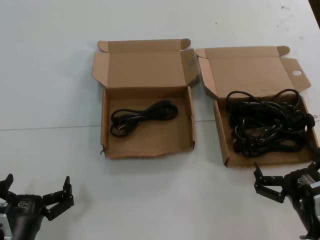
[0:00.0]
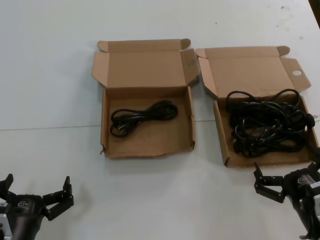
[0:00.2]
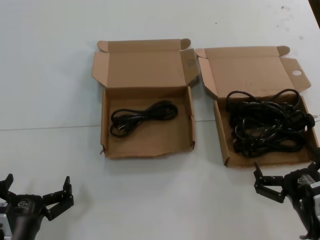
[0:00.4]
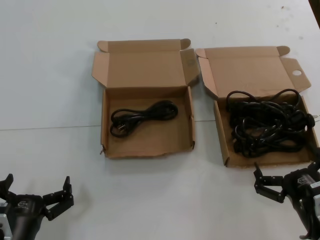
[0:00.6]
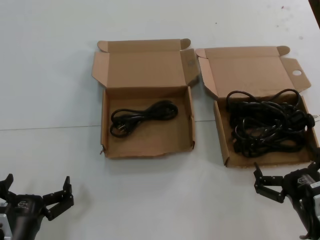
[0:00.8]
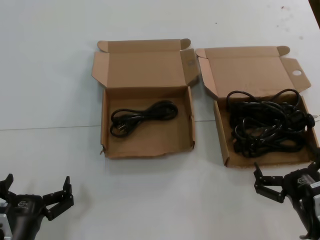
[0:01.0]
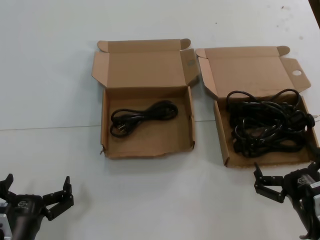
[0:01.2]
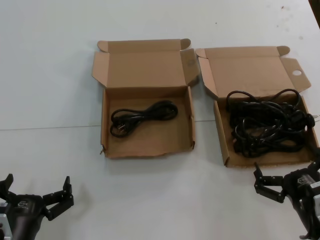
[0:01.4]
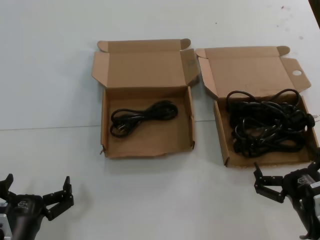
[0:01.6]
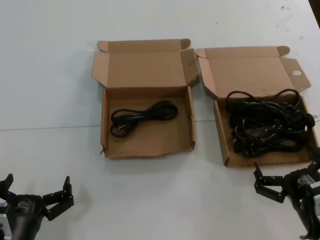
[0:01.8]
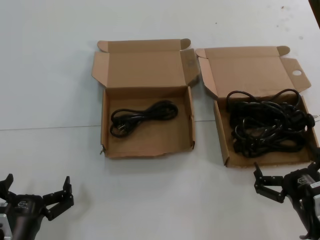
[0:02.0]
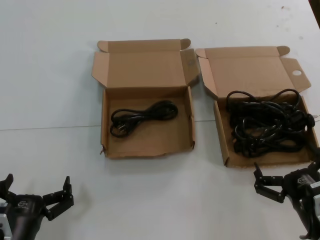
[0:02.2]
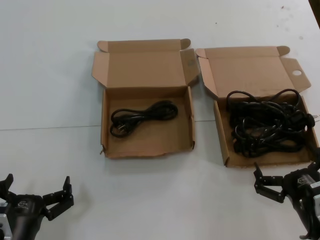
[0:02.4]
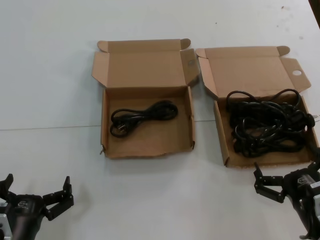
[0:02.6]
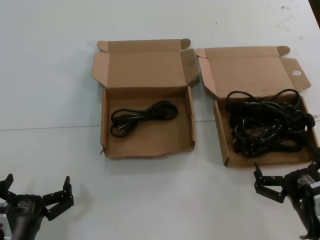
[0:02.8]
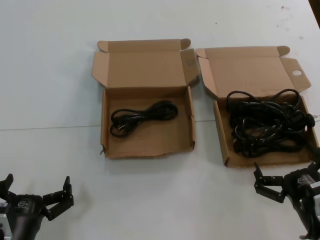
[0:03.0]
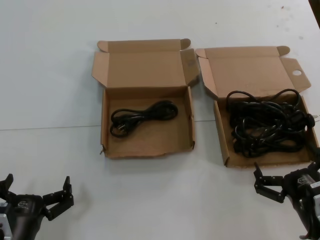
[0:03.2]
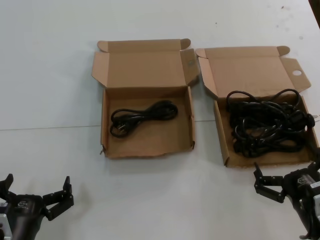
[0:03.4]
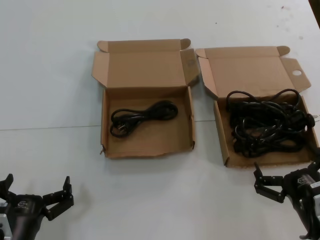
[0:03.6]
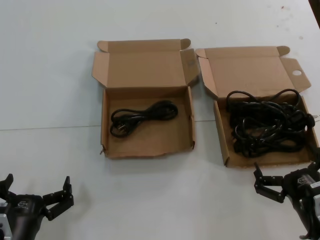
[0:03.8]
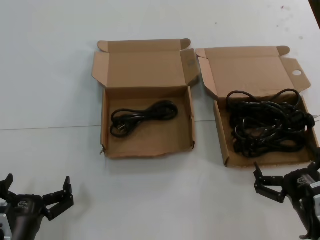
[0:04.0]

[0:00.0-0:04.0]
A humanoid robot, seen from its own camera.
Task of the whole recording: take the parts from the box containing them and put them into an empty box.
0:00.0 to 0:04.0: Both hands stay about where they are.
